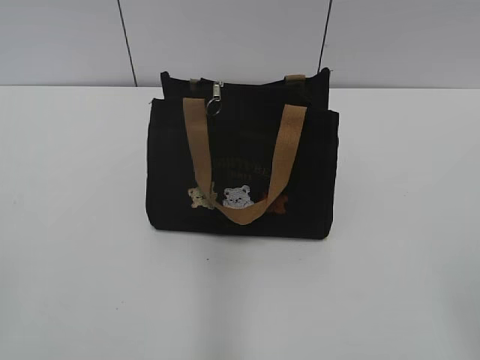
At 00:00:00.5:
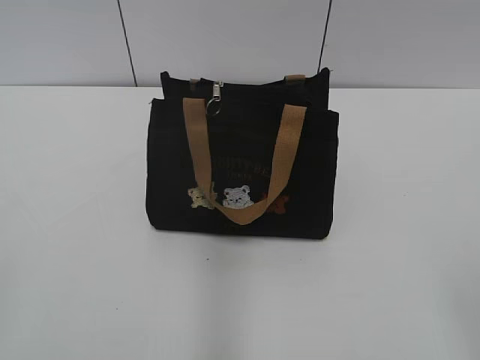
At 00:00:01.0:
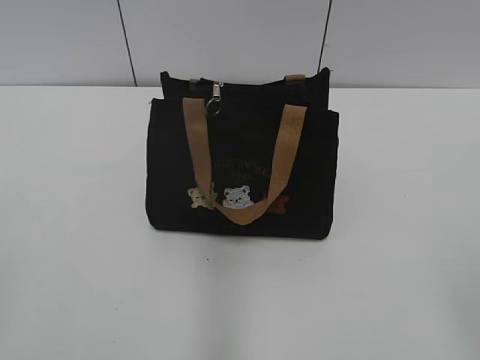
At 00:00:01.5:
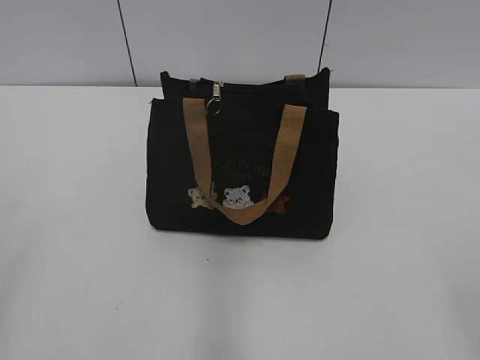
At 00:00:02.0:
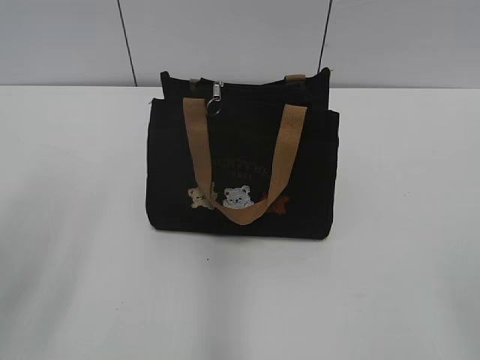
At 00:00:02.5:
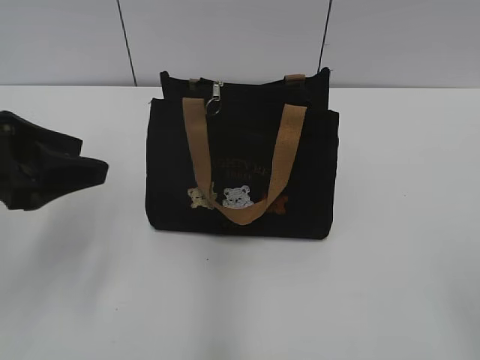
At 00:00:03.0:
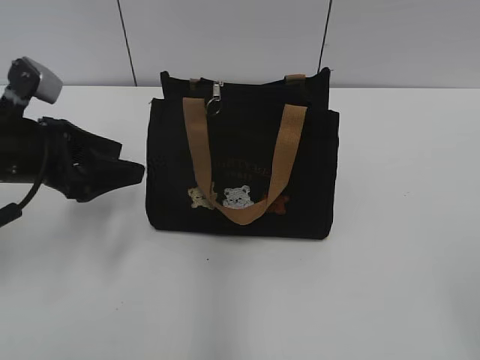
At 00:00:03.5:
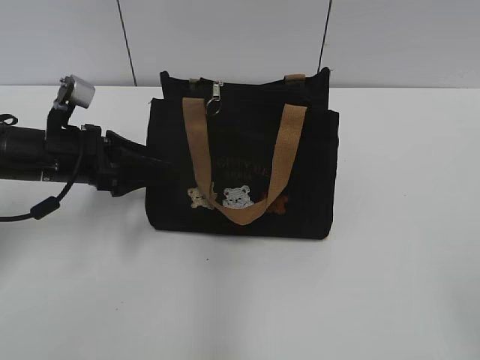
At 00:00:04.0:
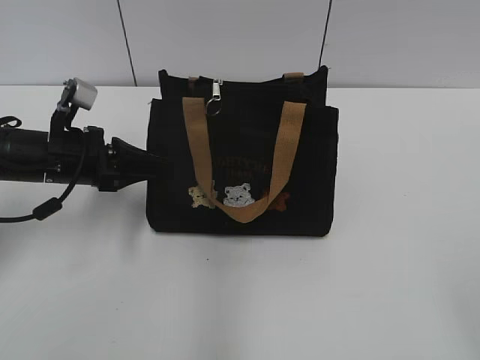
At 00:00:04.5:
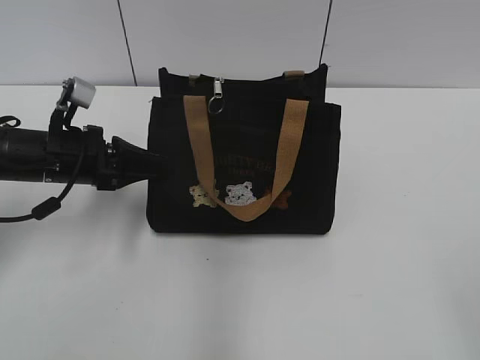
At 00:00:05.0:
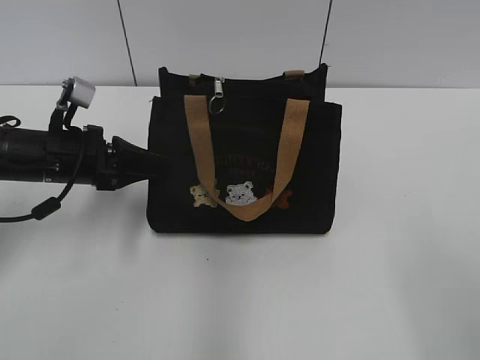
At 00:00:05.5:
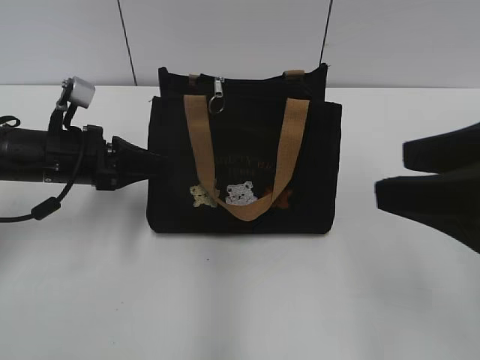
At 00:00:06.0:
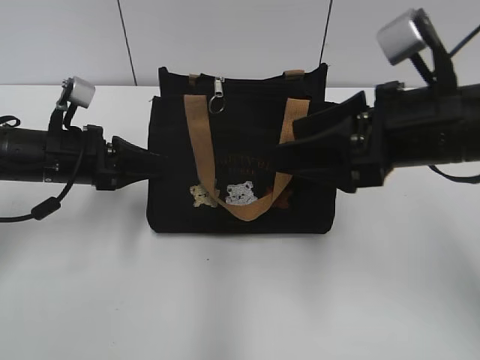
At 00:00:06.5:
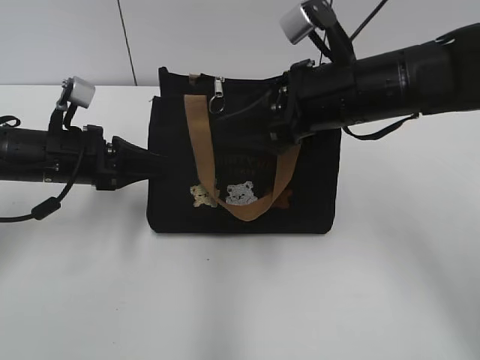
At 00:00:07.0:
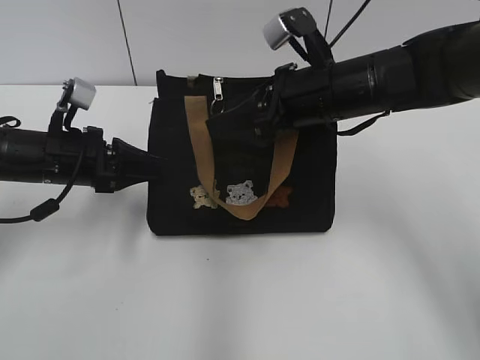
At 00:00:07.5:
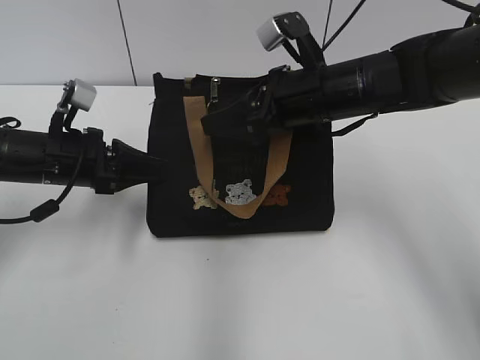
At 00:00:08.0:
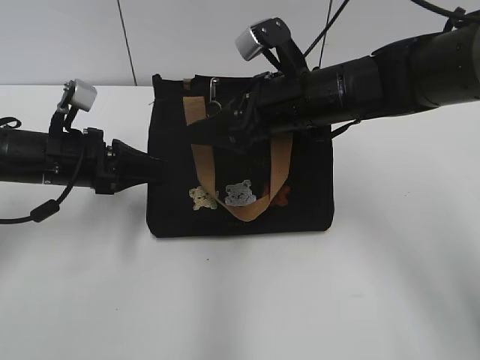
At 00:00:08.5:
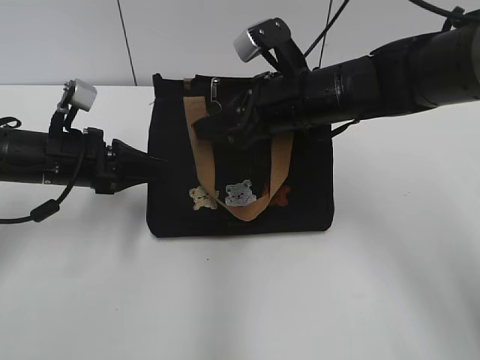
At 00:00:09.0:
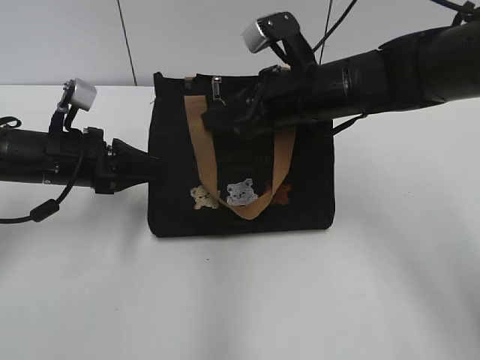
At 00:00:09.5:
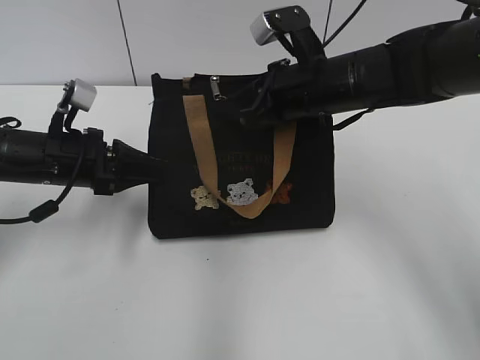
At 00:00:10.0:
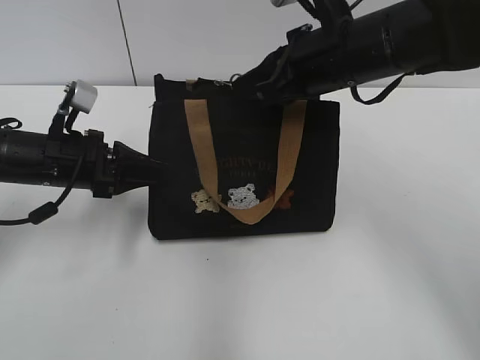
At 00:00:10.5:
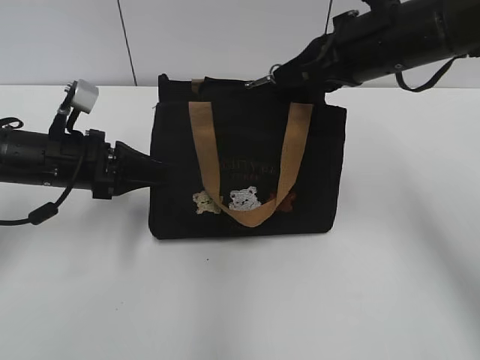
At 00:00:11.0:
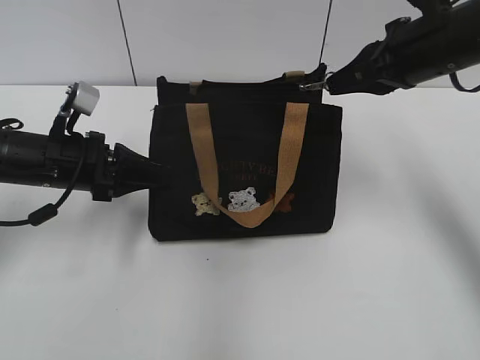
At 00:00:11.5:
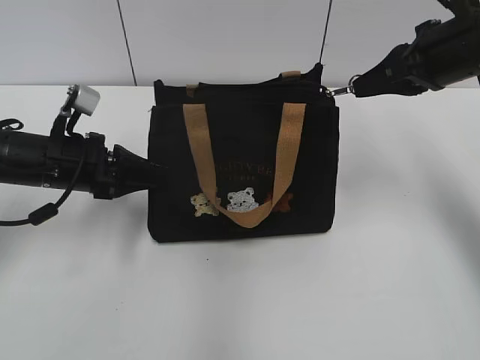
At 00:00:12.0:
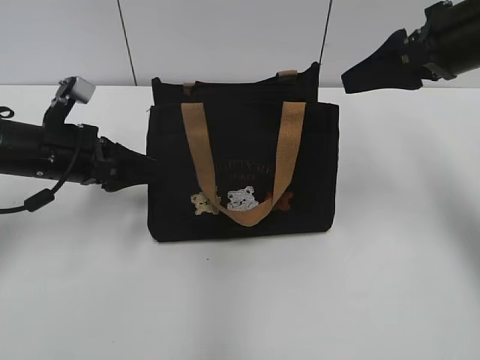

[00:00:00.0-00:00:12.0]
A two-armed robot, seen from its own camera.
Step, 00:00:00.0 to 00:00:11.5: Pull open the zipper with your right hand.
00:00:02.0 to 00:00:04.0: The left gripper travels forward and downward by approximately 30 cm, and closes its fingers.
00:00:04.0 to 00:00:06.0: The right gripper is displaced forward and to the left by about 25 cm.
00:00:06.0 to 00:00:08.0: The right gripper heads forward, to the left and downward, covering roughly 20 cm.
00:00:08.0 to 00:00:10.0: The right gripper changes place by some 5 cm, and closes.
00:00:10.0 to 00:00:12.0: The right gripper travels to the right by approximately 15 cm, and opens its fingers; the left gripper opens up.

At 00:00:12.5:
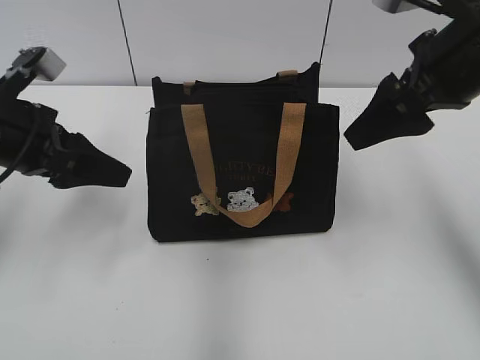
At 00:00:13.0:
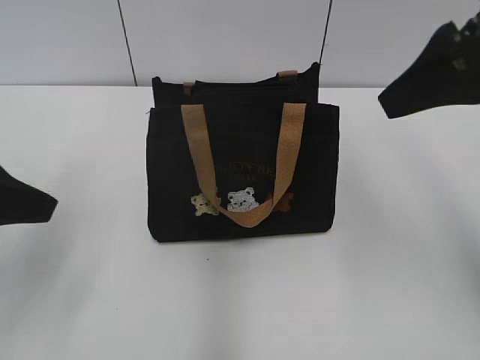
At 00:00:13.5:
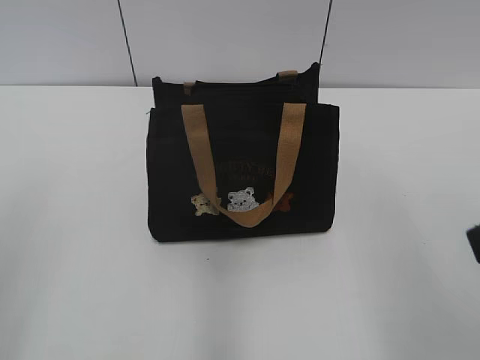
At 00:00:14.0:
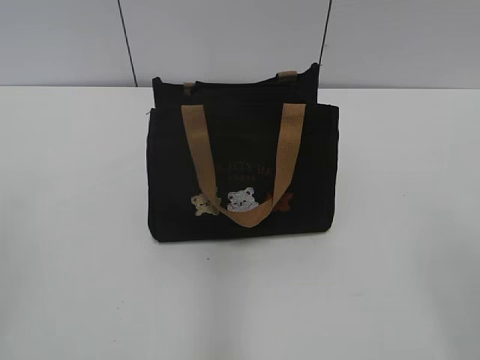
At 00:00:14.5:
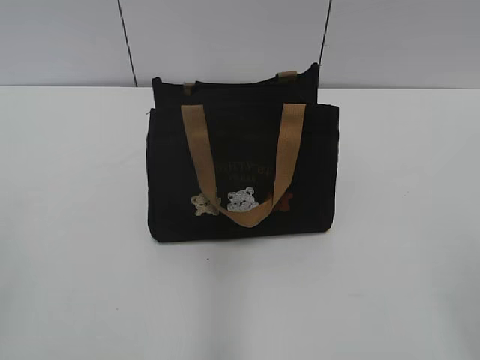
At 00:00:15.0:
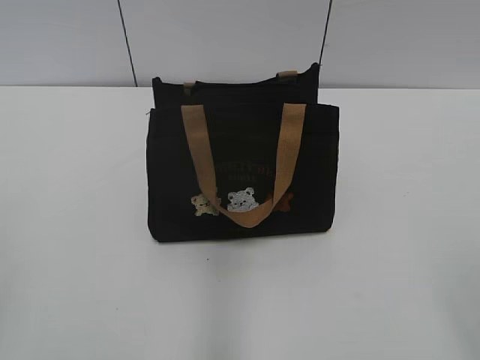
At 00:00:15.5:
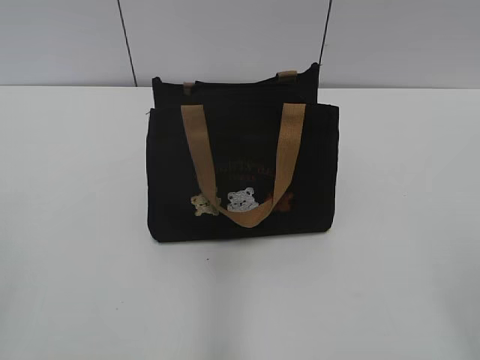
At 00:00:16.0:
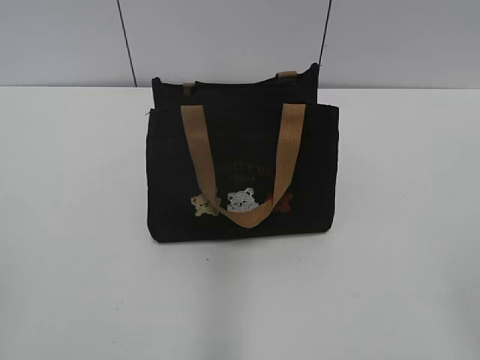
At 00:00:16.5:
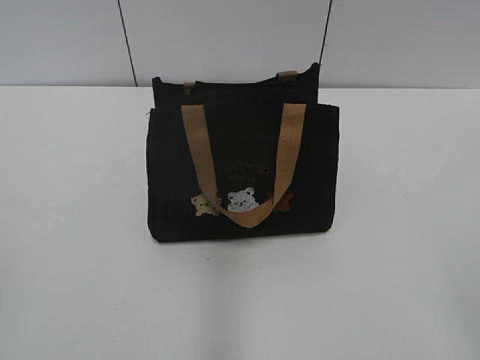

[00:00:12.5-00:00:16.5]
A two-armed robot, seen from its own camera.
00:00:12.5 to 00:00:14.5: Both grippers move backward, some 30 cm.
